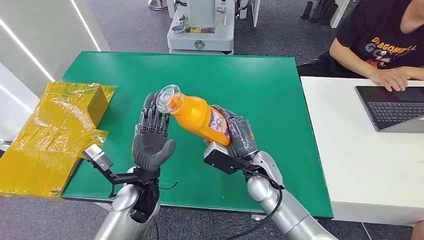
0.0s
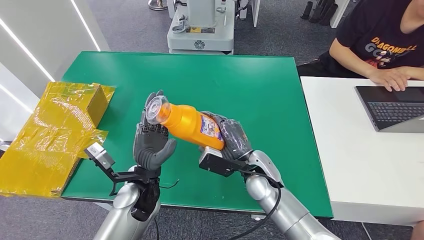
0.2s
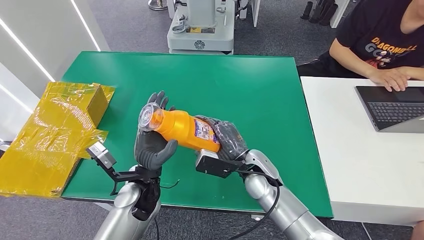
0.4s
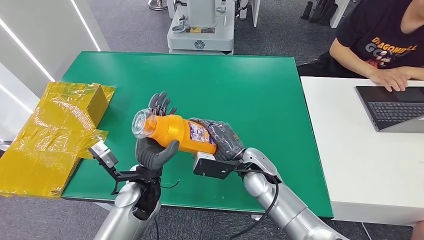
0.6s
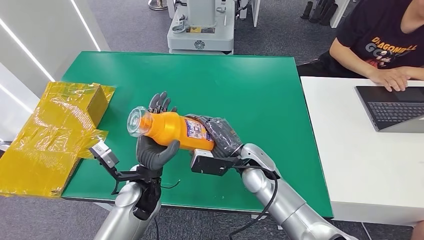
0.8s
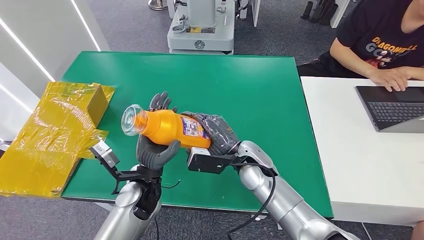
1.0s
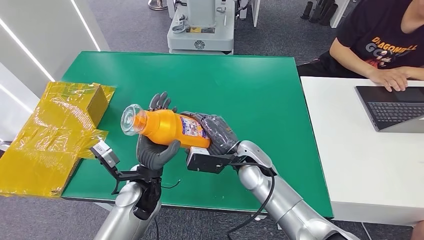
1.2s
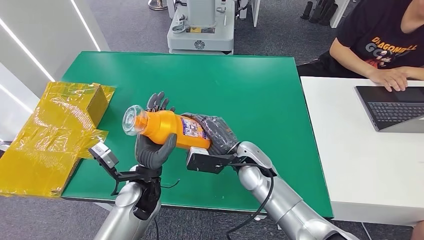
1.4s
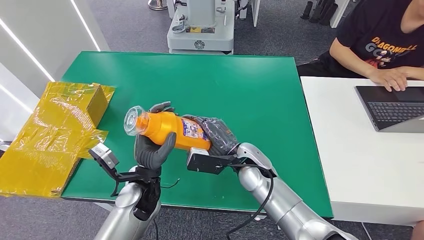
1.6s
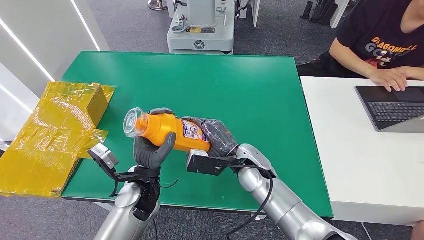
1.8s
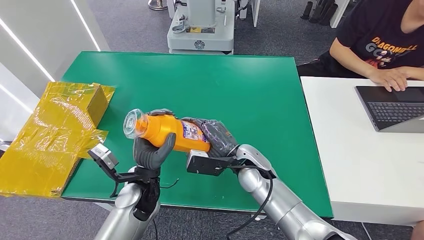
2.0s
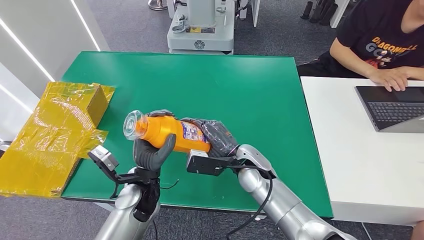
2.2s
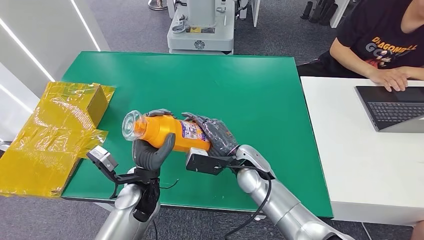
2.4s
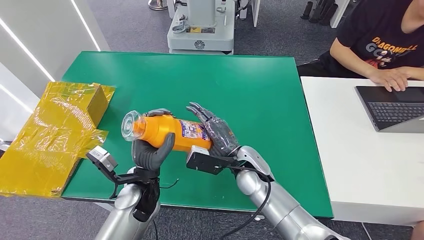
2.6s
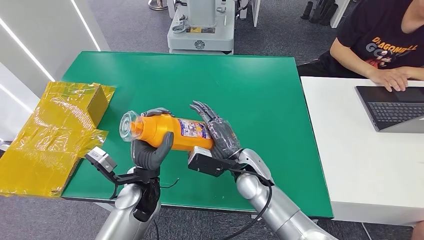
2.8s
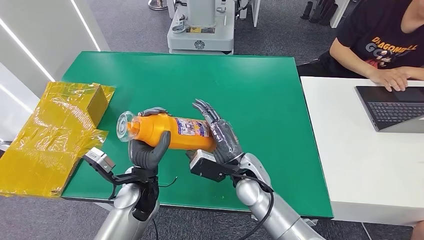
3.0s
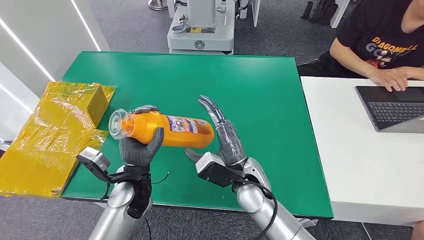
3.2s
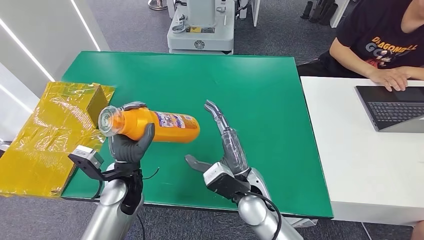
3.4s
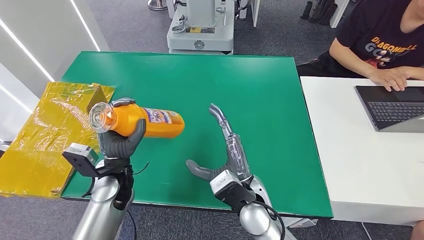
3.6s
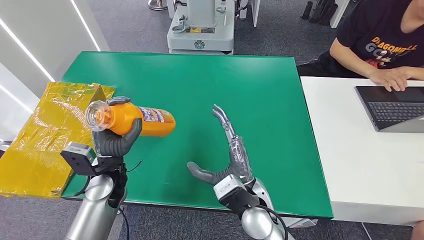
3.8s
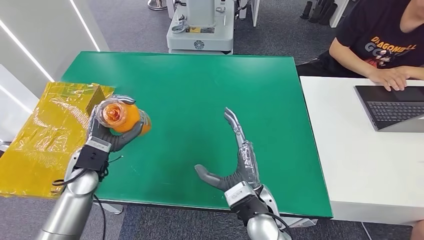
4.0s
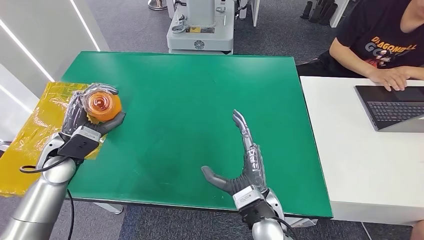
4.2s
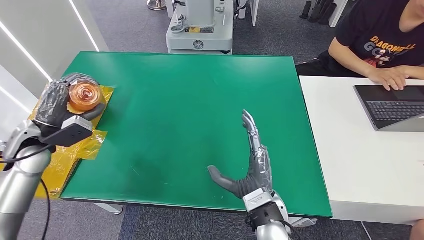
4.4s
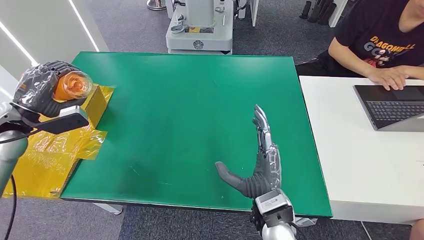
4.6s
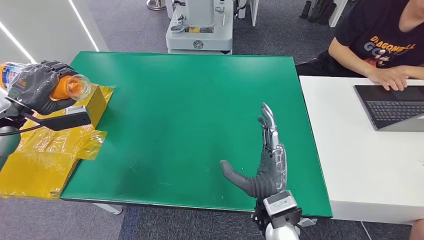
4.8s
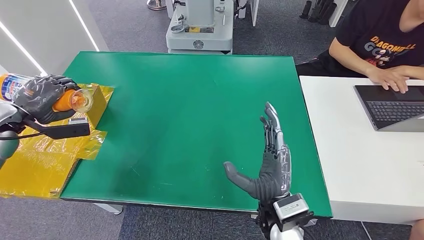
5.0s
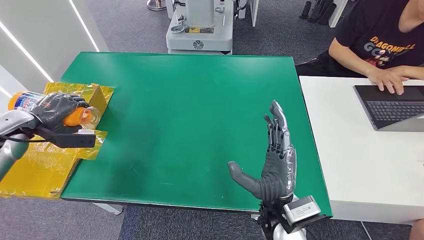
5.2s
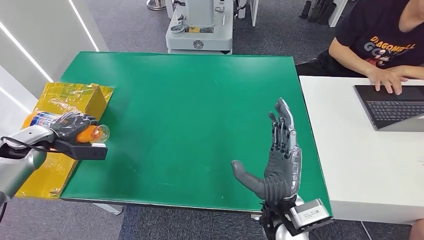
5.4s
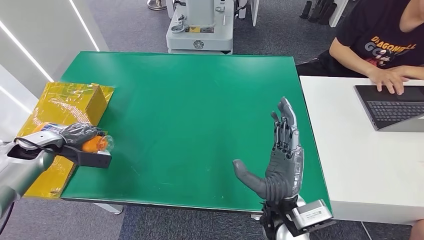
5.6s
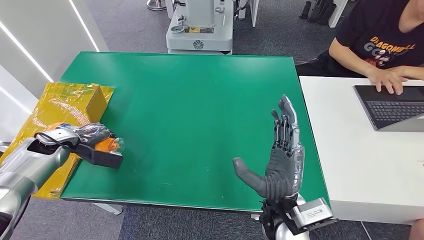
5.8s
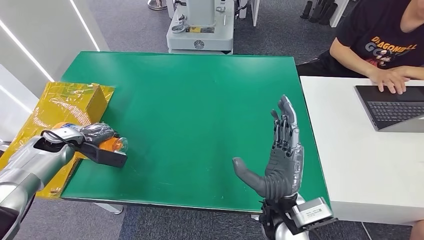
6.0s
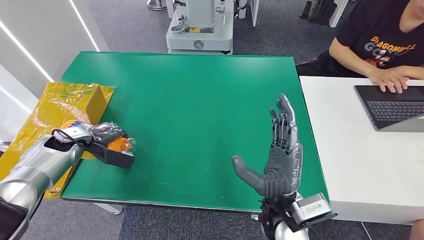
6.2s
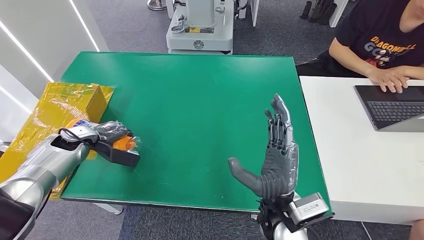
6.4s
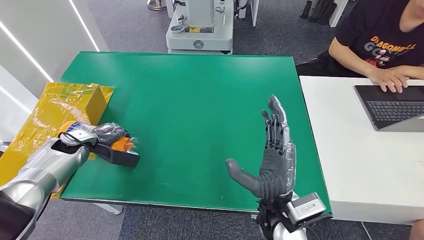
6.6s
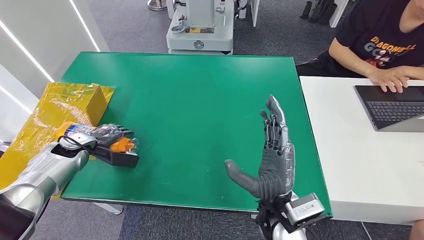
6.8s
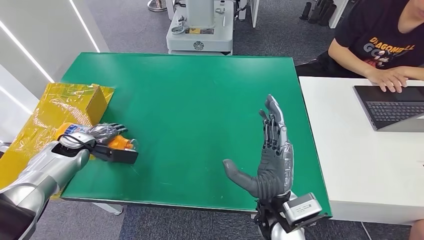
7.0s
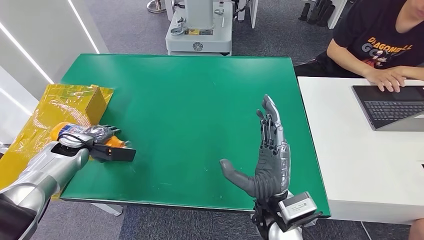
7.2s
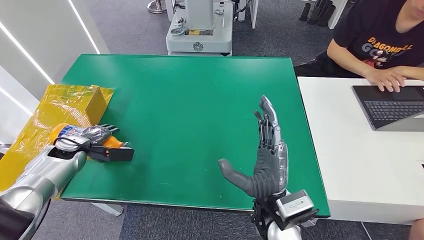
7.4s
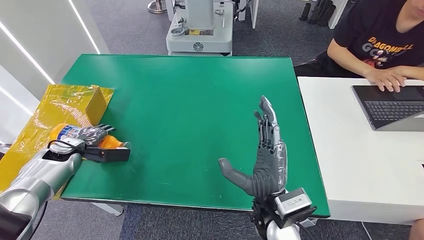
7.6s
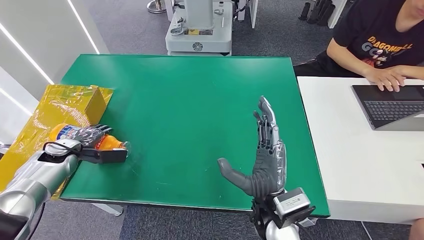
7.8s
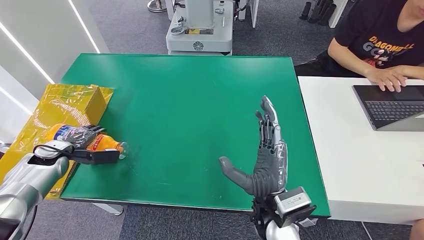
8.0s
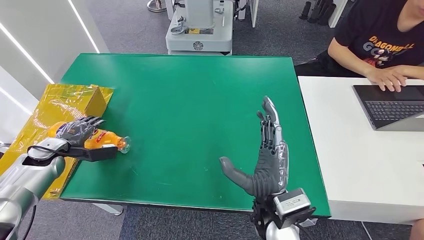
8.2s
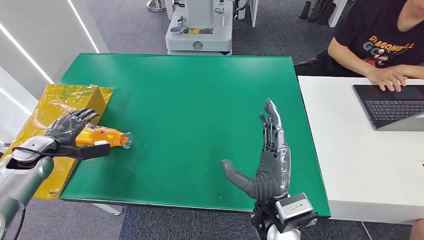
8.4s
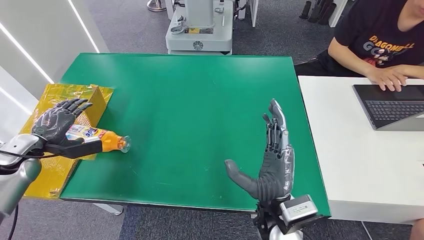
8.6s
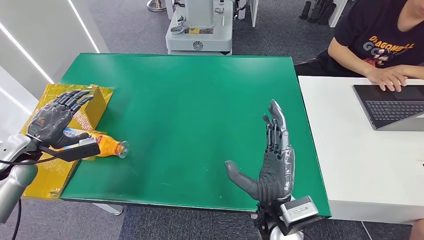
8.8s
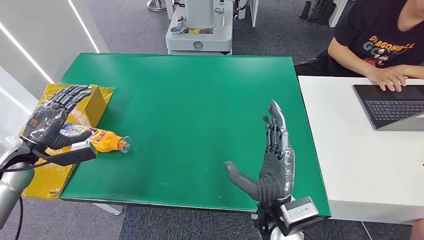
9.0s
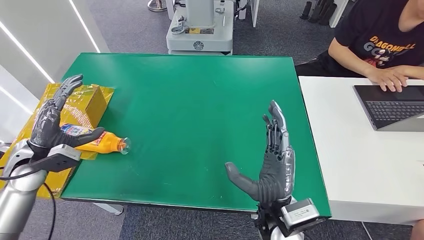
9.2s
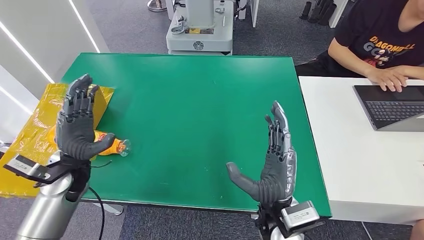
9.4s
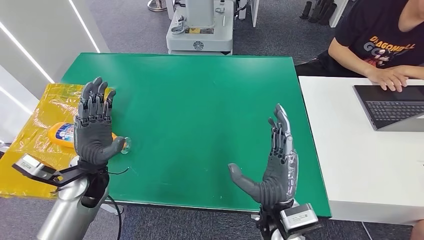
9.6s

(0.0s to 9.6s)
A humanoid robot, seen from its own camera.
Step, 0.0s - 9.6s: Turn the bottle to the front side.
0.0s - 1.6s: The hands move only a little.
1.6s - 3.2s: The right hand travels backward by approximately 5 cm.
4.8s - 6.4s: The left hand is displaced downward and to the right by approximately 15 cm.
6.4s - 8.0s: The left hand travels to the left by roughly 5 cm.
8.0s - 9.6s: The left hand is displaced to the right by some 20 cm.
